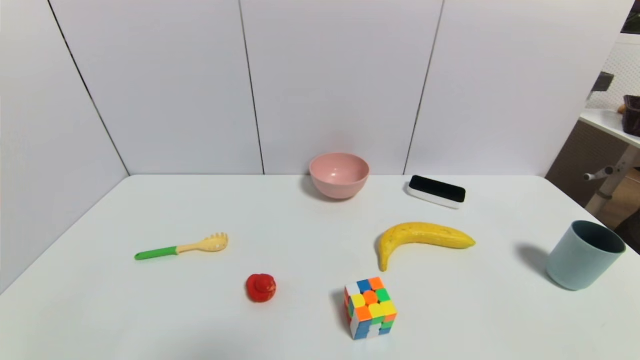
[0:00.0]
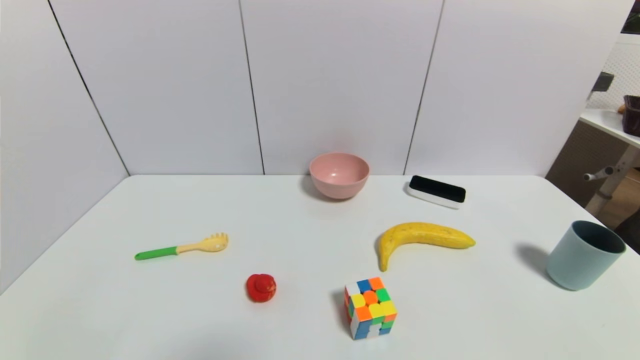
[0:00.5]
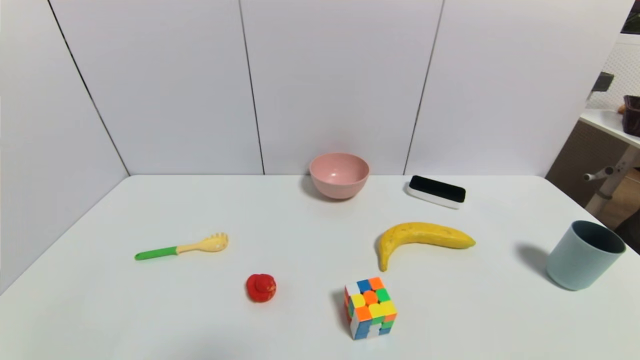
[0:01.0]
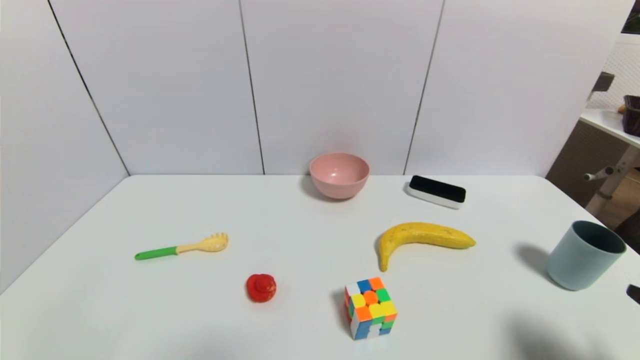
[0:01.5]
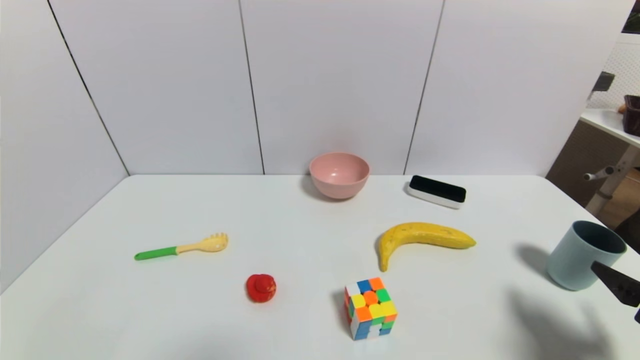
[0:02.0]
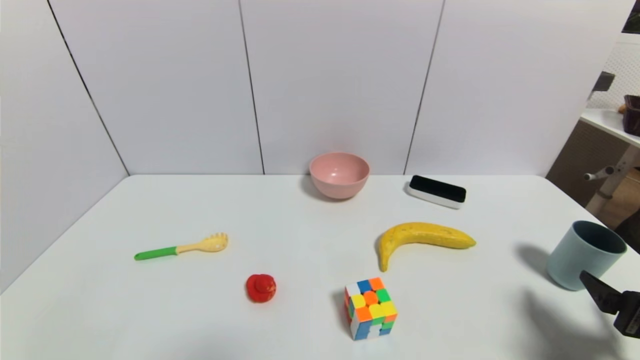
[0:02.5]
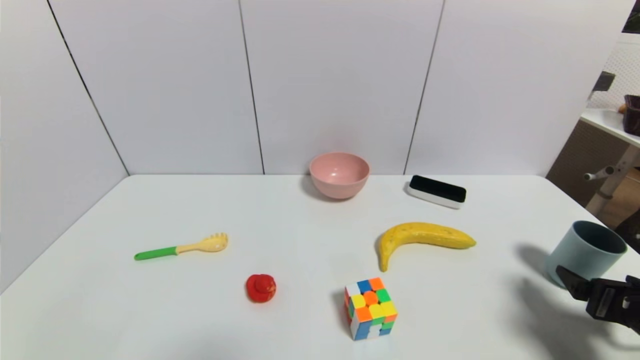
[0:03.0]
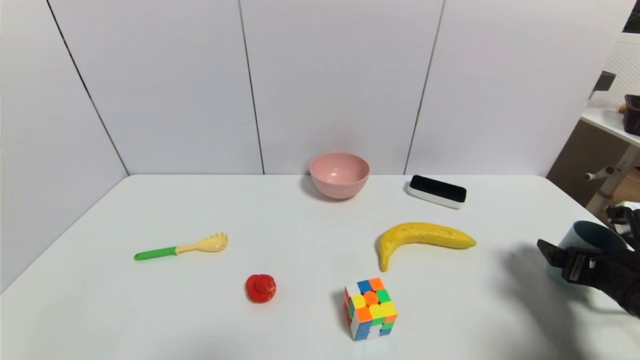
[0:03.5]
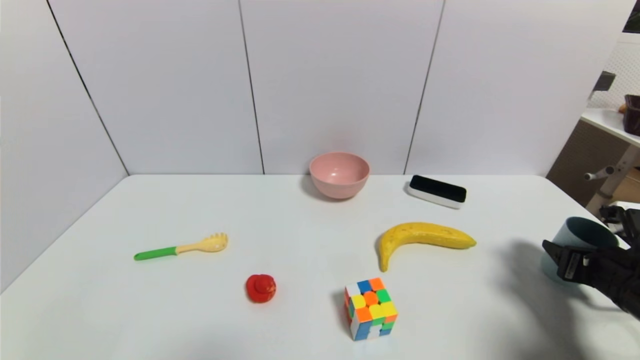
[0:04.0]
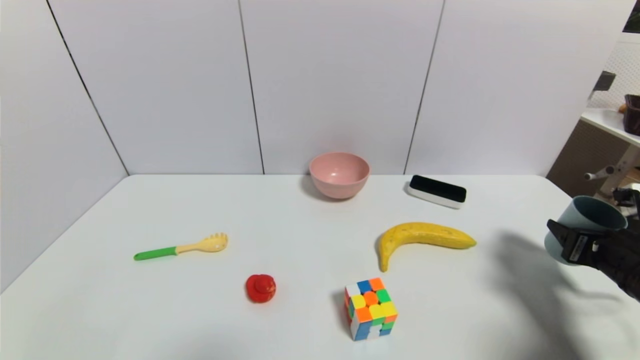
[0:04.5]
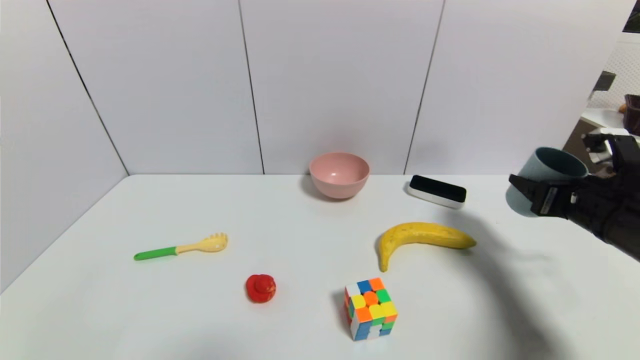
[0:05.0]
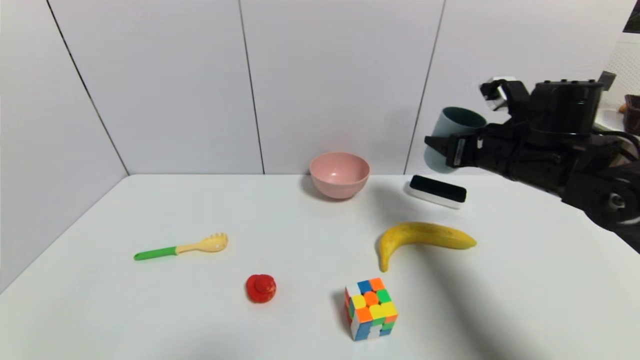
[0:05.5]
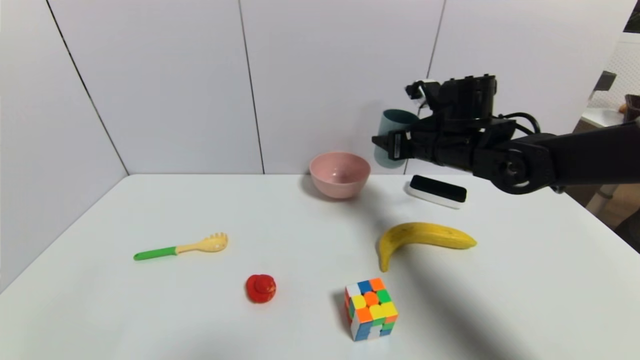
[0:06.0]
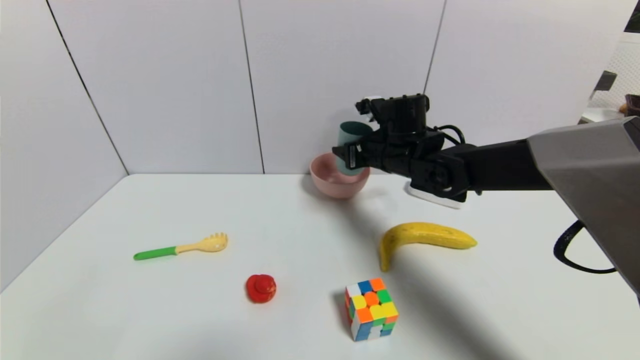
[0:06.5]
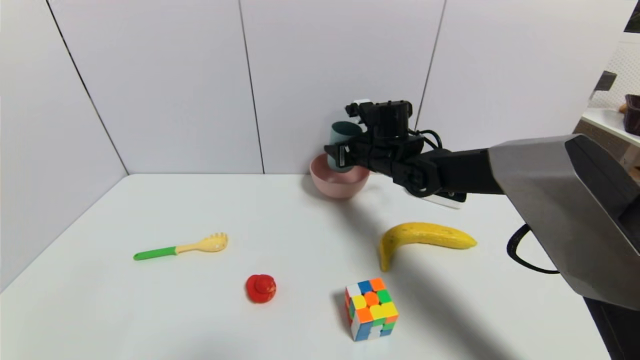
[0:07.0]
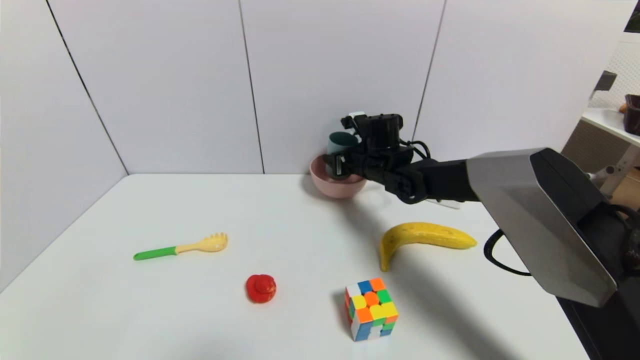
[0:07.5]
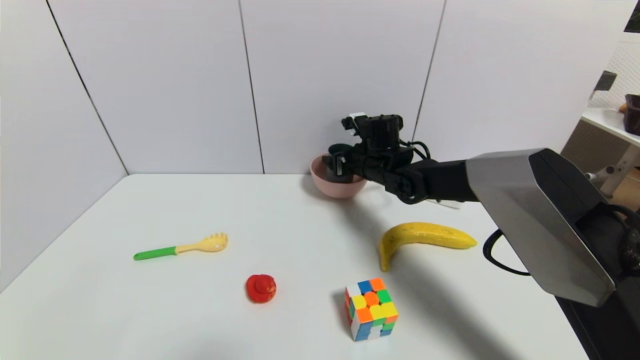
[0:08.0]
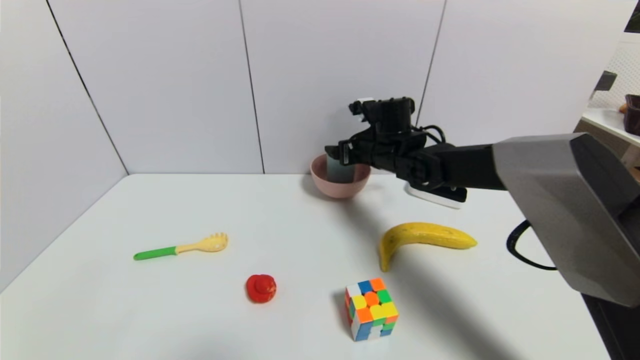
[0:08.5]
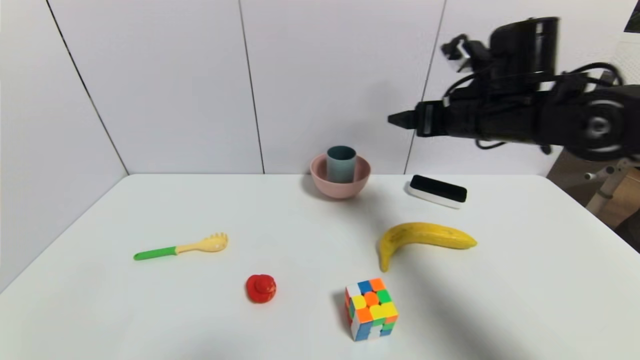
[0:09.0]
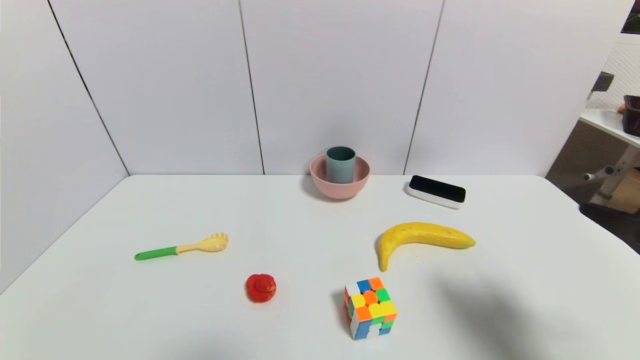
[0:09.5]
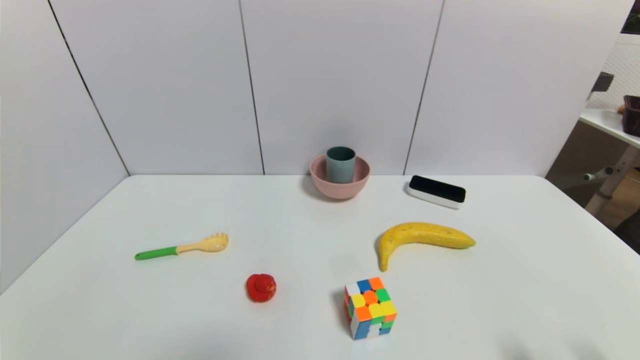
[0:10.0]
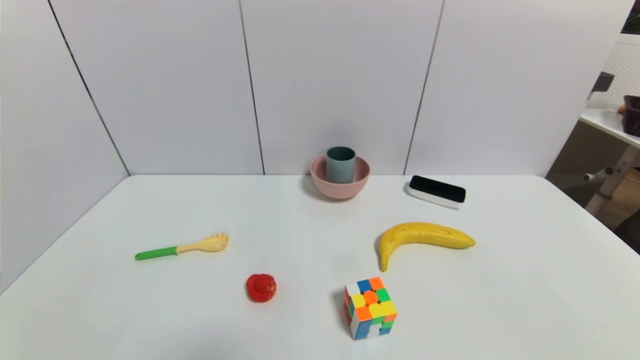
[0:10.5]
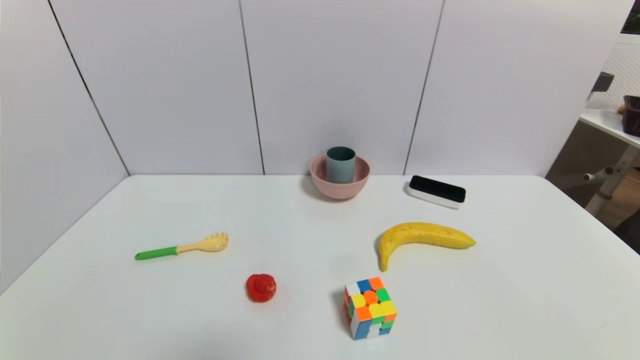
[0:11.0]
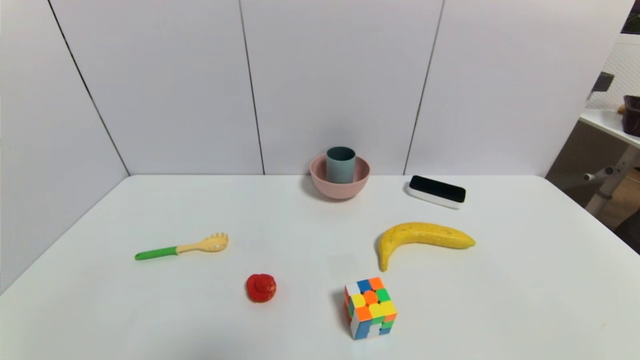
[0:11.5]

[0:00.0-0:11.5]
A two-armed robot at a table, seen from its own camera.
Task of the whole recording: use a gripper to pick the target object and place on the pink bowl.
Step, 0:00.0 to 0:03.5: Grasp the blue cup with the right gripper.
Step, 0:04.0 to 0:08.0: Place the blue cup on the pink bowl with the right gripper.
0:00.0 to 0:02.0: The right gripper is displaced forward and upward by roughly 15 cm.
0:02.0 to 0:04.0: The right gripper moves forward, some 10 cm, and closes.
0:04.0 to 0:06.0: The right gripper travels to the left, forward and upward by about 30 cm.
0:06.0 to 0:07.5: The right gripper heads to the left, forward and downward, covering roughly 15 cm.
0:07.5 to 0:09.5: The right gripper travels backward and to the right by about 40 cm, and opens.
0:09.5 to 0:11.5: The right gripper is displaced downward and backward by about 20 cm.

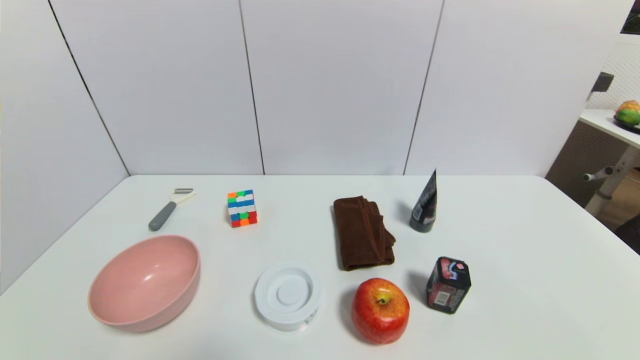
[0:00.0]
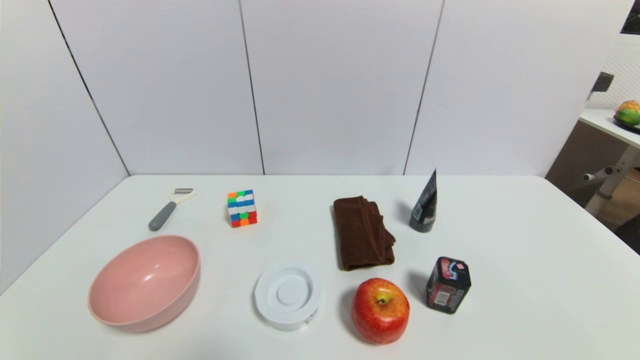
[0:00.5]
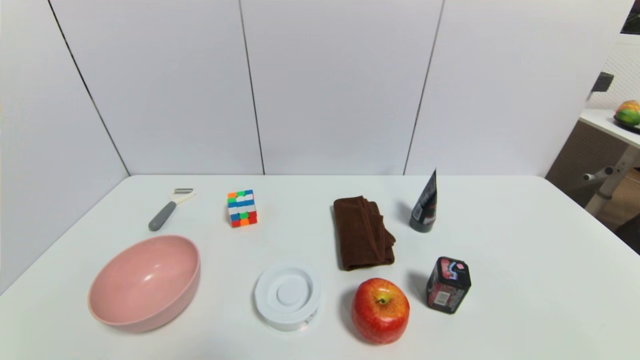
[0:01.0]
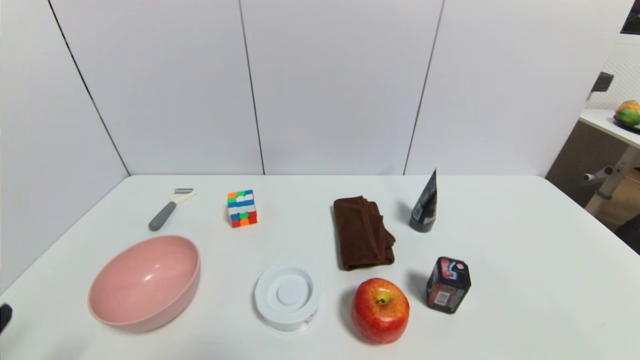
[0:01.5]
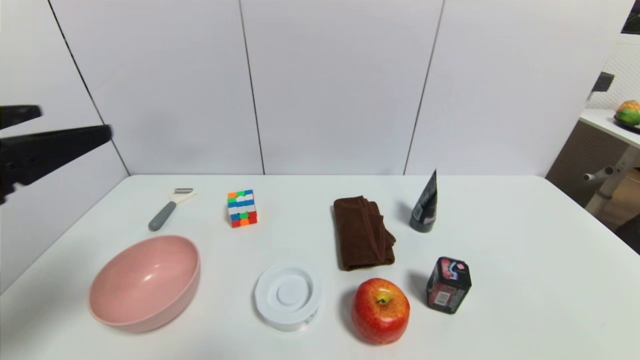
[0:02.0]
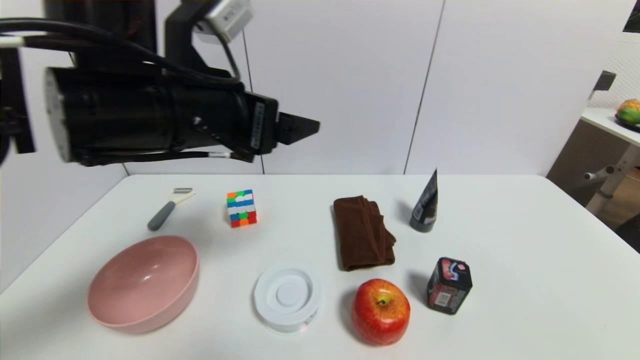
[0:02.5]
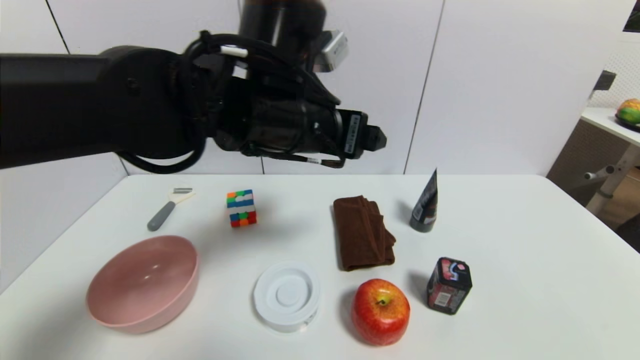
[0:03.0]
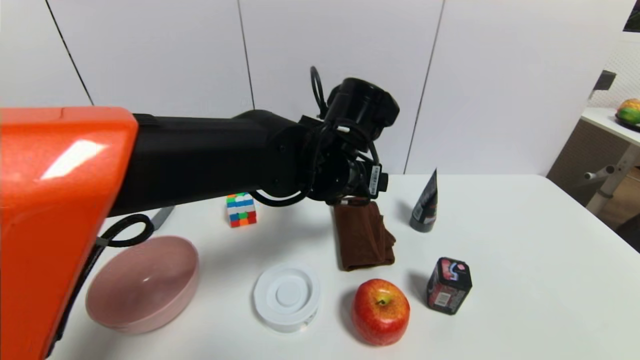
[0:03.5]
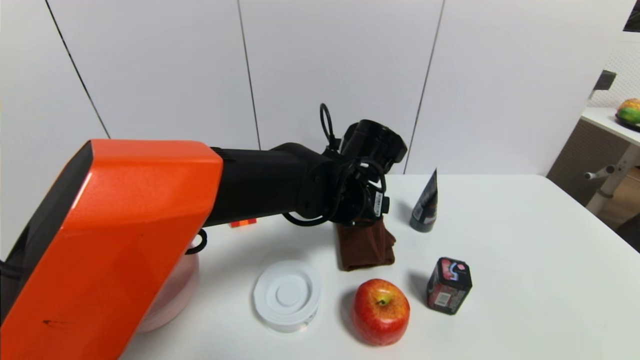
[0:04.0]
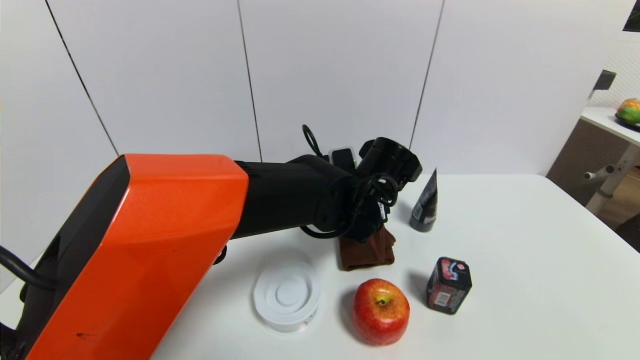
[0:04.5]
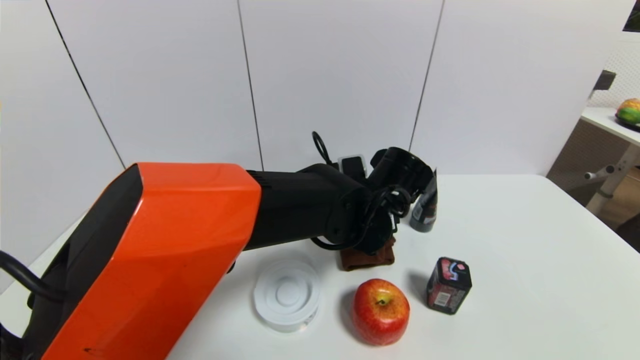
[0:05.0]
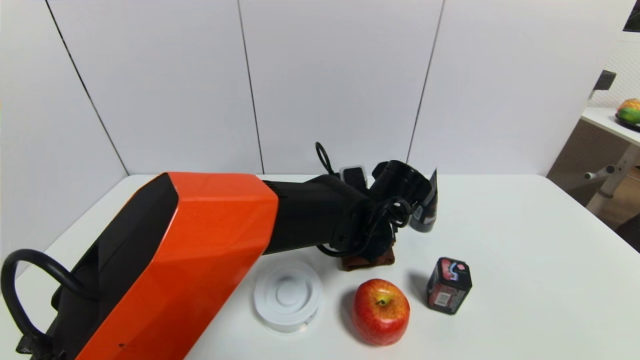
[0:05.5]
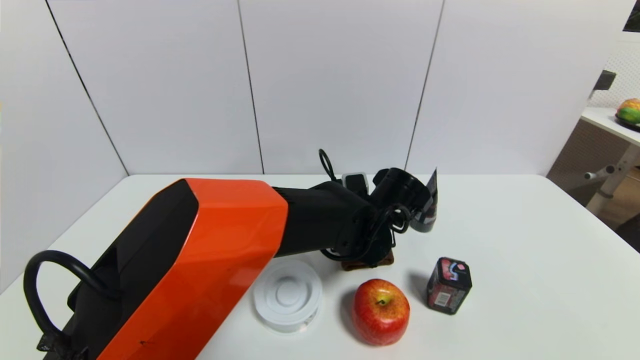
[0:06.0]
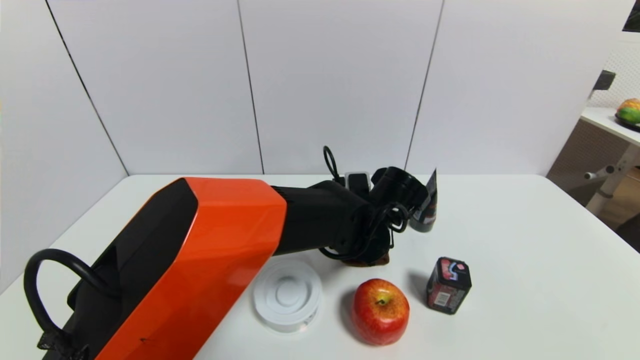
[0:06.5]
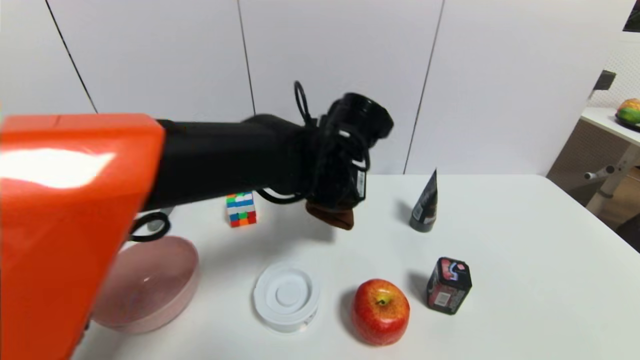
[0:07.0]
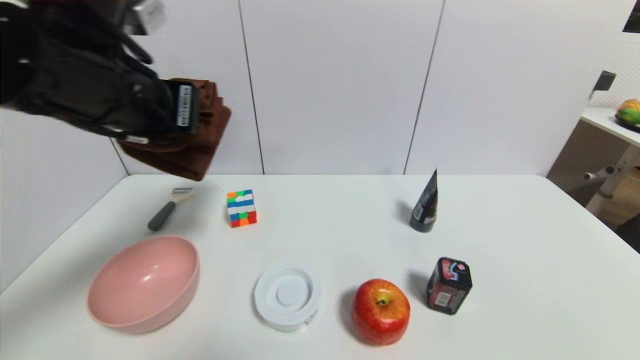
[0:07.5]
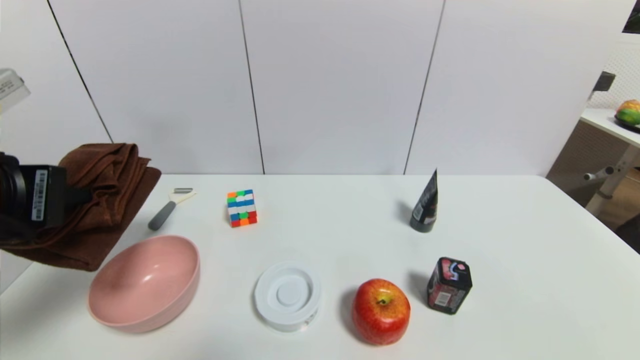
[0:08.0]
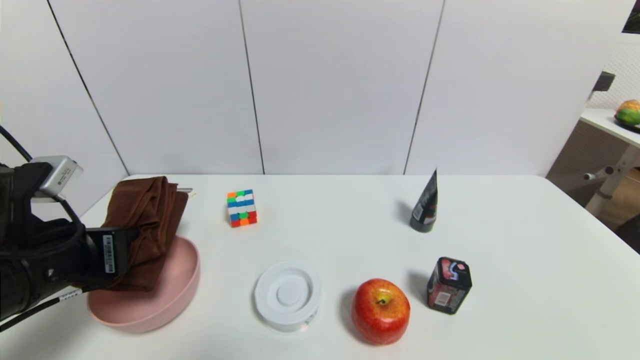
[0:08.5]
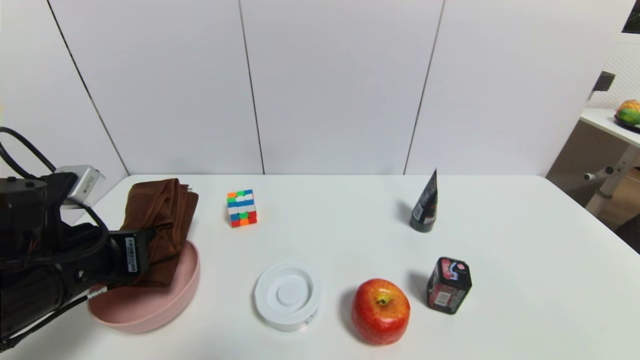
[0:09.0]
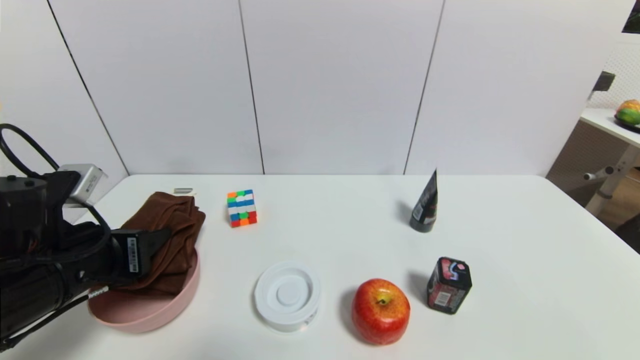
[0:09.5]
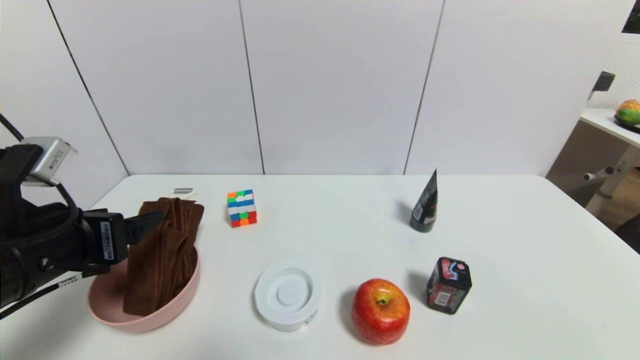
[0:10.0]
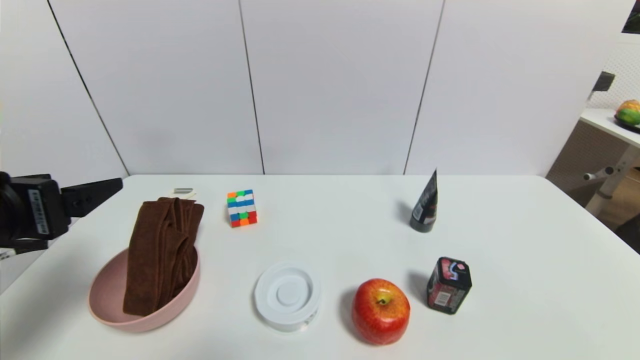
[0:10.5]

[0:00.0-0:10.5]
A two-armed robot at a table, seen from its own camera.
Task of the whole recording: use a gripper to pick the target object and place on the pink bowl.
0:00.0 to 0:02.0: The left gripper moves upward and forward, some 30 cm.
0:02.0 to 0:04.0: The left gripper heads to the right, forward and downward, covering about 40 cm.
0:04.0 to 0:06.5: The left gripper shifts approximately 5 cm downward, and closes its fingers.
0:06.5 to 0:08.5: The left gripper moves to the left and backward, some 35 cm.
0:08.5 to 0:10.5: The left gripper travels upward by approximately 5 cm, and opens.
